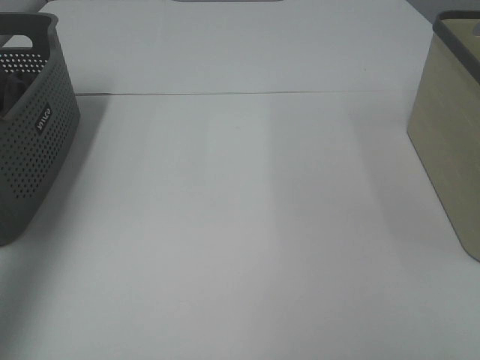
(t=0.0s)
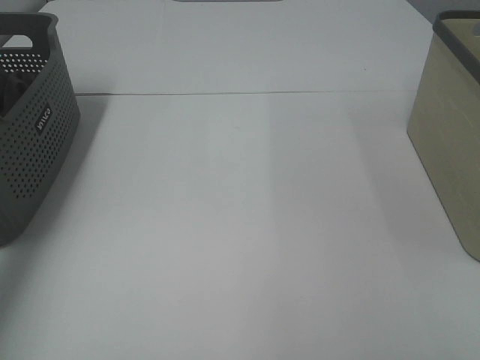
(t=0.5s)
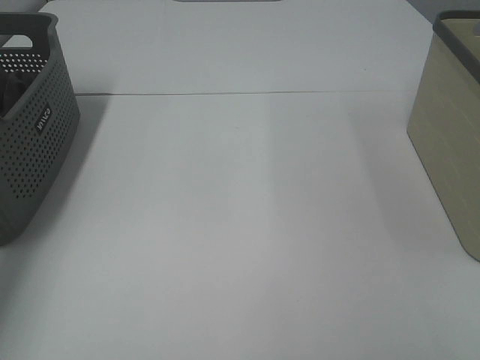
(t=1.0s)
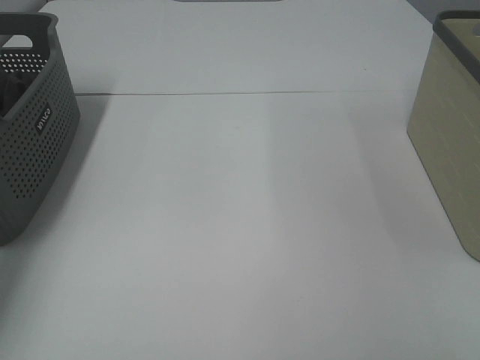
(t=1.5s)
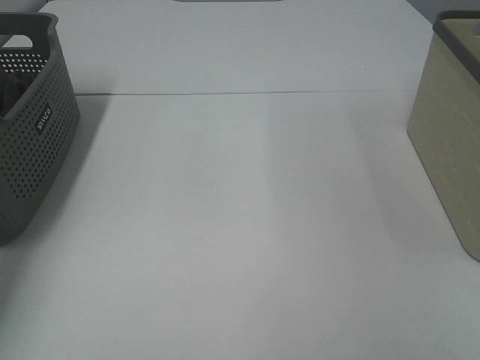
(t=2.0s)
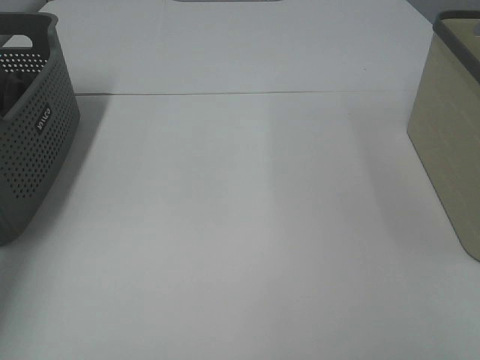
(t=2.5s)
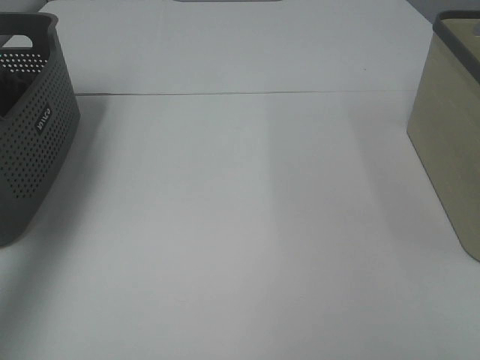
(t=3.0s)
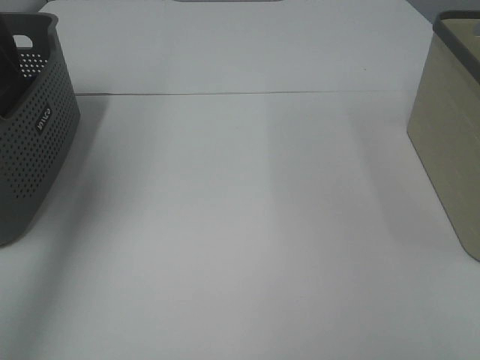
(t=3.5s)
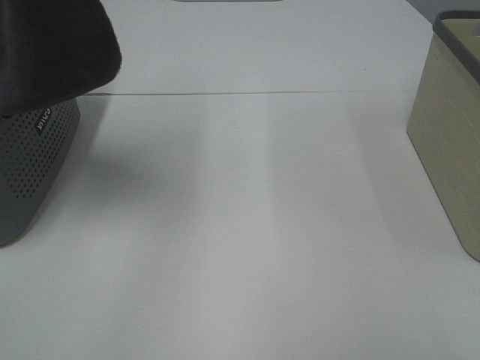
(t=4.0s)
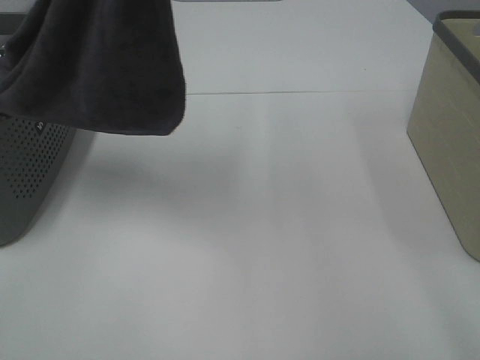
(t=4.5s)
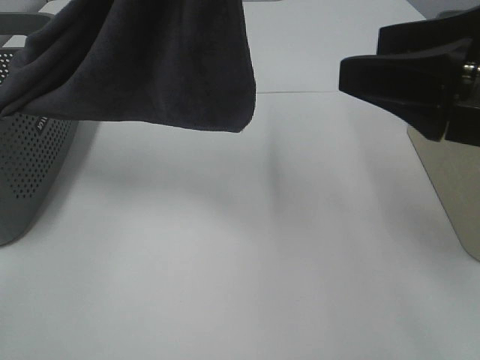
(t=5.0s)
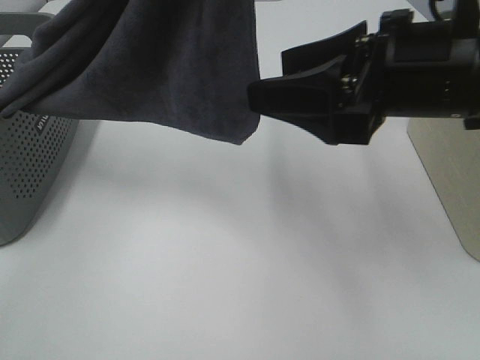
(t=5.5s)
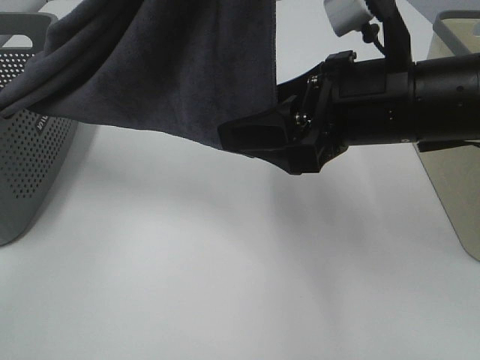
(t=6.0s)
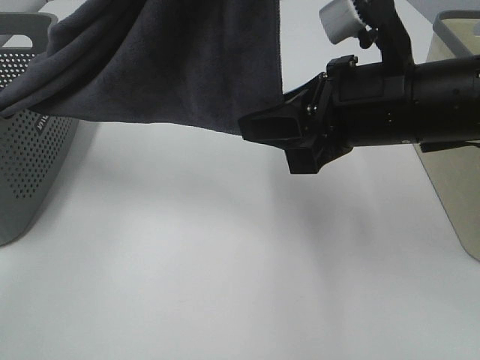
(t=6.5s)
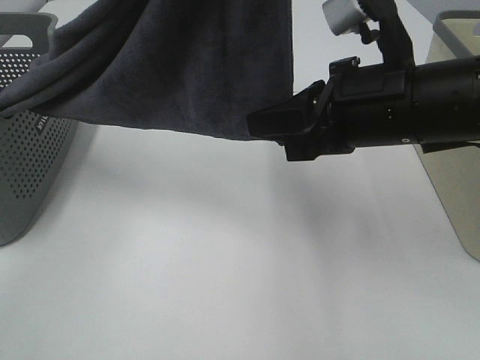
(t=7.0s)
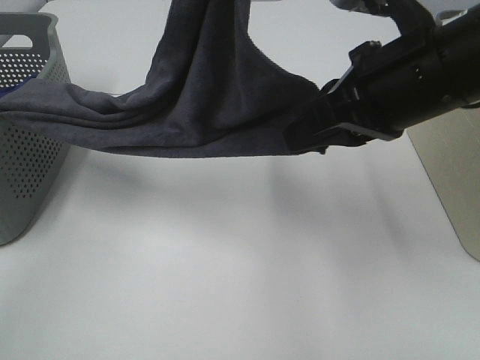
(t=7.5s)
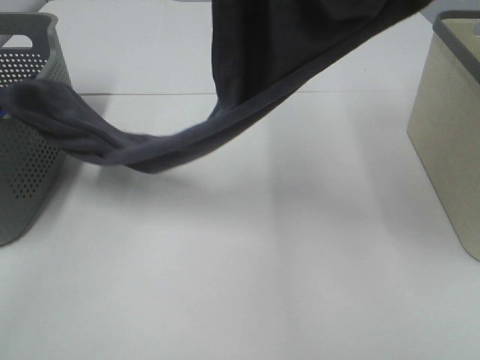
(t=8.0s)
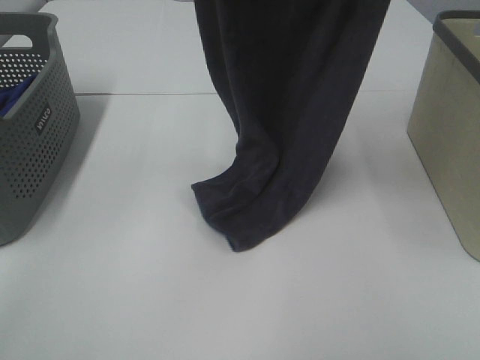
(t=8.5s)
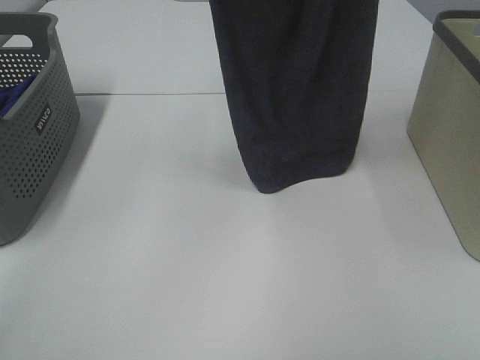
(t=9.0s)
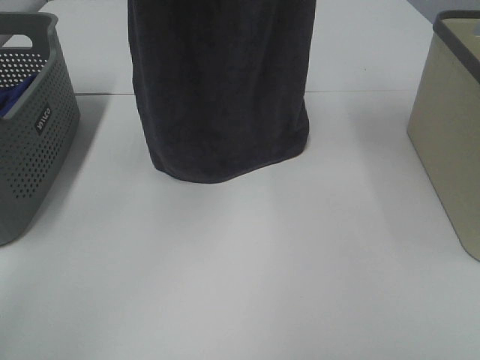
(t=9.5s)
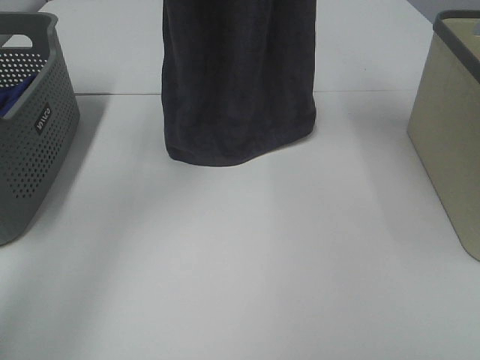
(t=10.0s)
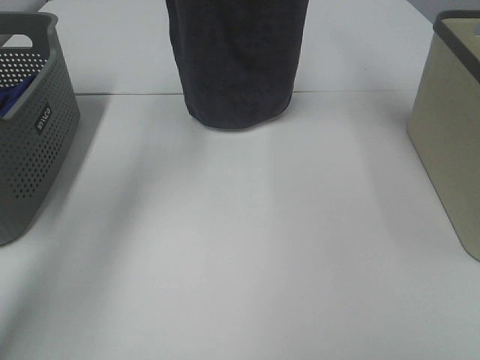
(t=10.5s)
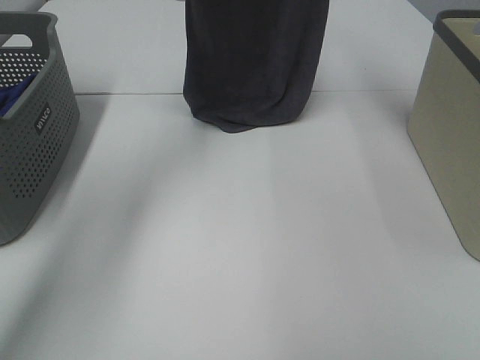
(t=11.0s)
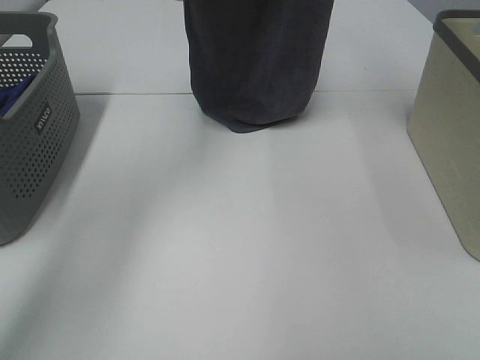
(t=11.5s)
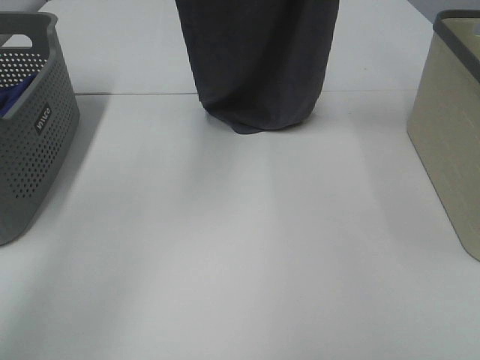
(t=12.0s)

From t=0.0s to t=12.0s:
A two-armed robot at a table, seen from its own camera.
Task of the whole recording: Remove the towel and place it.
Step, from t=3.5s to t=6.5s: Right hand: grab a corner of the grey towel and straighten it.
From t=0.0s to t=2.0s: The left gripper travels downward and forward by approximately 30 cm, and closes up.
From t=2.0s to t=4.0s: The left gripper is displaced upward, to the right and backward by roughly 40 cm.
From t=4.0s to t=6.0s: The left gripper goes about 15 cm to the right. The right gripper is displaced forward and to the left by approximately 30 cm.
From t=6.0s to t=8.0s: The right gripper goes some 20 cm upward, and closes up, while the left gripper ends up approximately 5 cm from where it was.
From t=8.0s to t=10.0s: The left gripper goes approximately 20 cm forward and to the left, while the right gripper shifts roughly 15 cm forward and upward.
From t=10.0s to t=12.0s: The right gripper goes roughly 5 cm to the right, and goes forward and returns, some 5 cm each way. Meanwhile the left gripper travels forward and back again, roughly 10 cm each way.

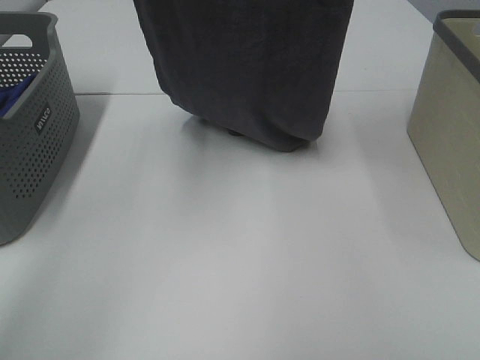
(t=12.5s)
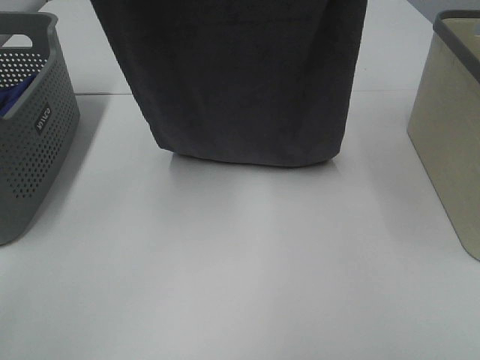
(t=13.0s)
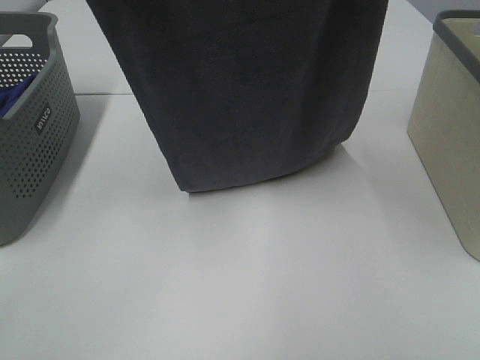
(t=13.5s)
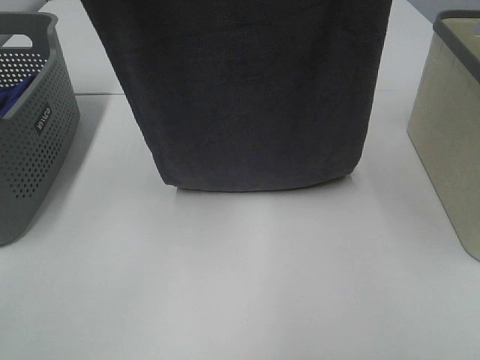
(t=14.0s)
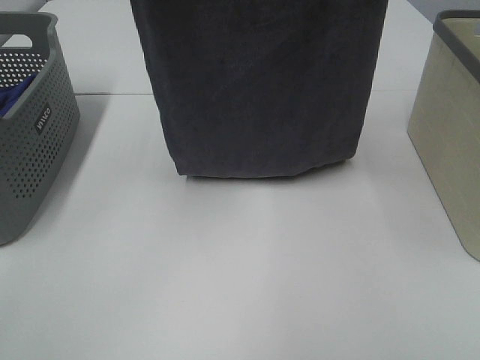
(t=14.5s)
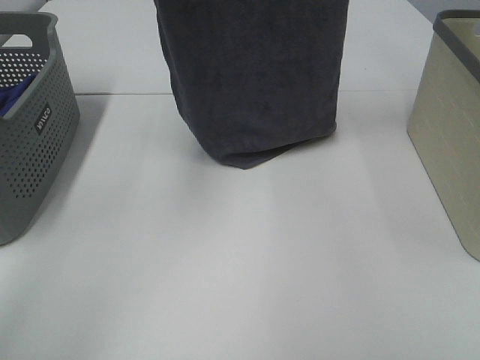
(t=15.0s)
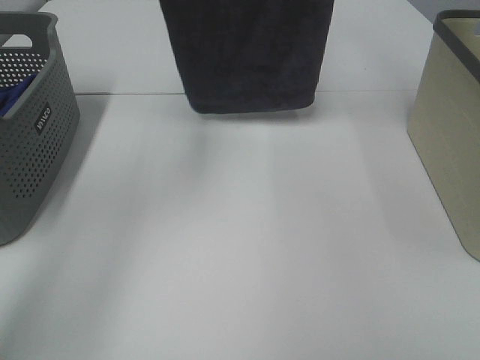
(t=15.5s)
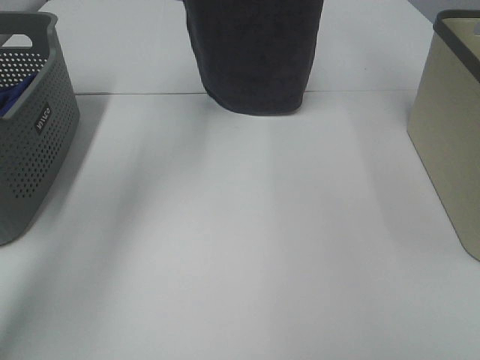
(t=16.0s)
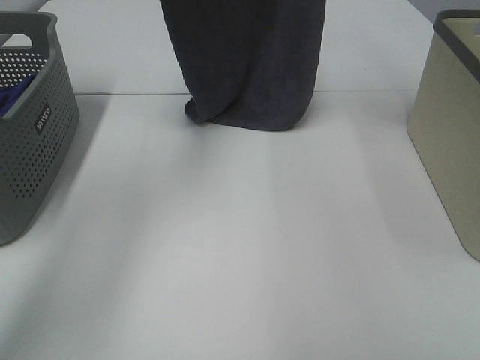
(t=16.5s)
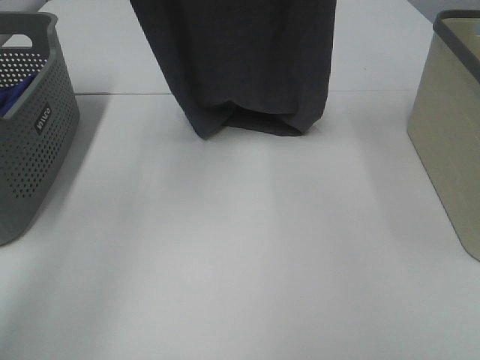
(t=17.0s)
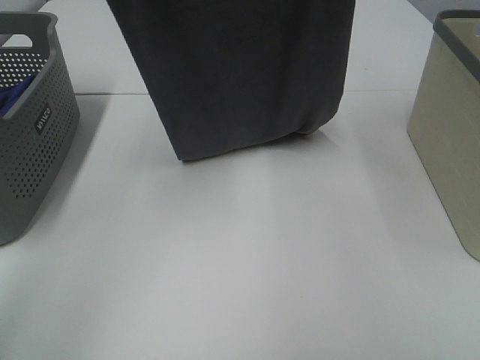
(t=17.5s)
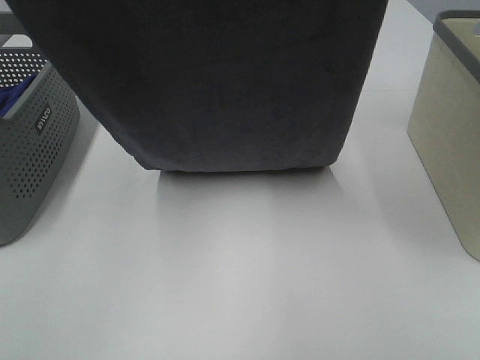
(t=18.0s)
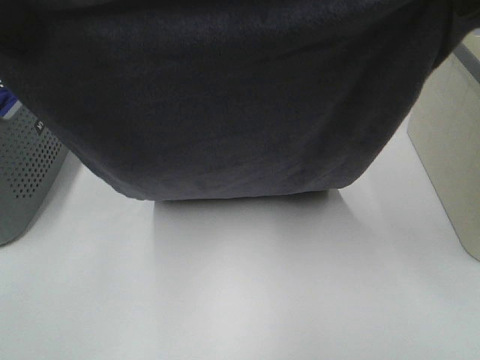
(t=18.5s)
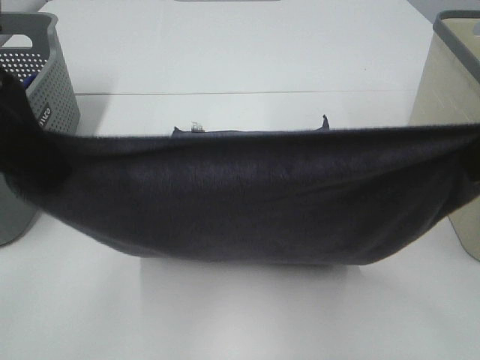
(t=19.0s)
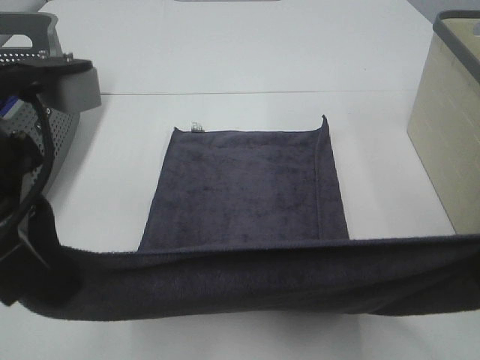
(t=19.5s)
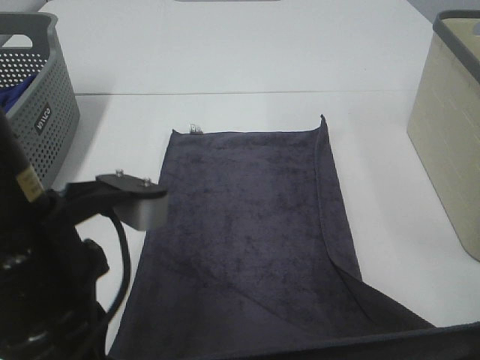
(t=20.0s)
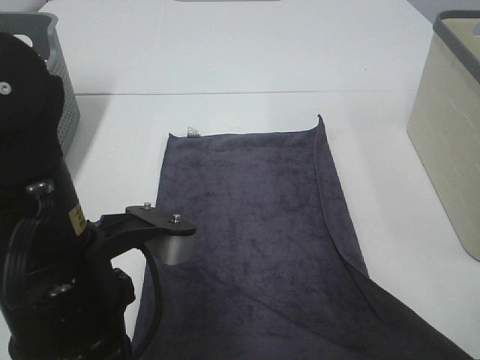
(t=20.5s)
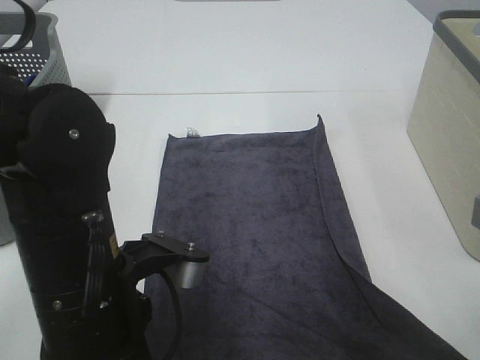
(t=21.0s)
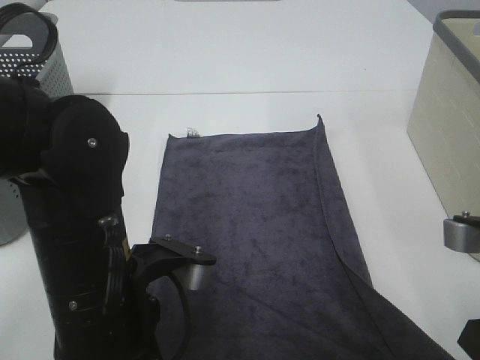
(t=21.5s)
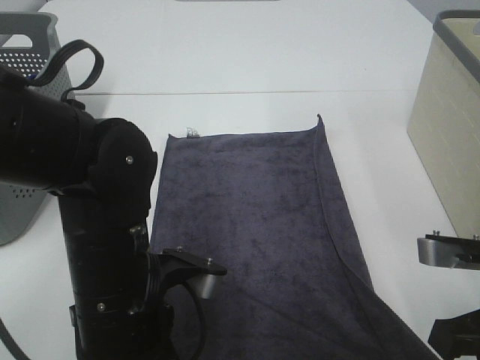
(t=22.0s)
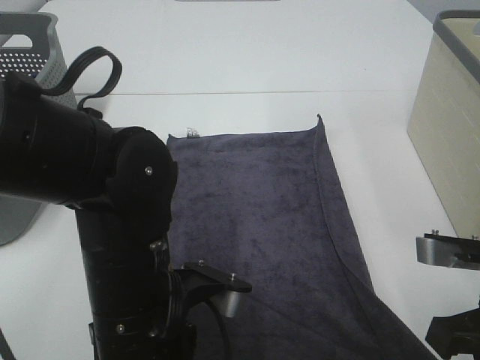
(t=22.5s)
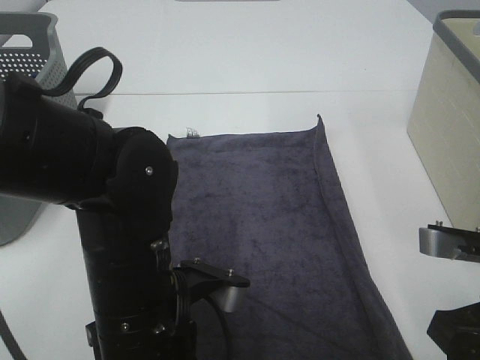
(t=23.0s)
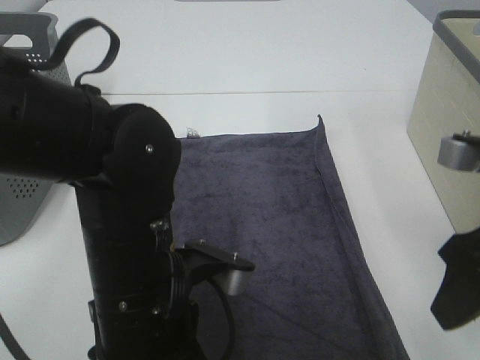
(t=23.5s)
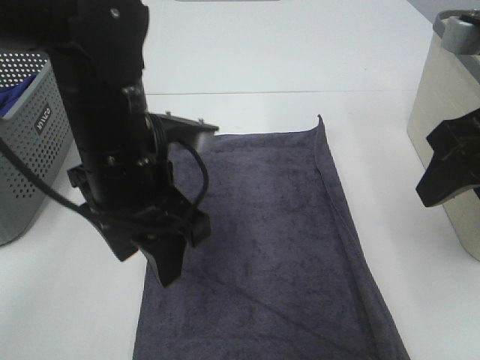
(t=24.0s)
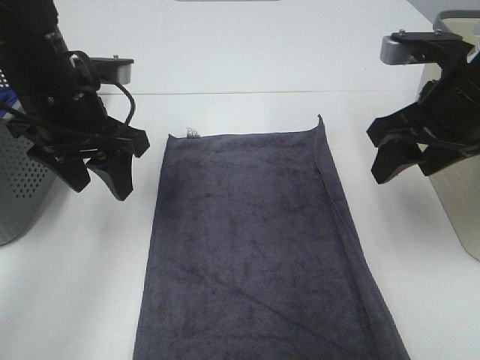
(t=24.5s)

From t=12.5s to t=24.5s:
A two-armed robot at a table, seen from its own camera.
Task of the whole recording: Remove the towel and place it.
Step, from t=12.5s to t=17.5s: Left hand: spread the grey towel flat on the table.
Step, from t=12.5s to t=17.5s: Right hand: spread the grey towel flat on the table.
From t=12.5s to t=14.5s: The right gripper moves backward, roughly 5 cm.
From t=14.5s to t=16.5s: Both grippers travel together forward, some 15 cm.
From t=16.5s to t=18.5s: The two grippers go roughly 25 cm backward.
From t=18.5s to t=20.5s: The left gripper goes roughly 20 cm downward and to the right, while the right gripper is displaced downward by about 20 cm.
From t=20.5s to t=22.5s: Both grippers travel together downward, approximately 5 cm.
From t=22.5s to t=24.5s: The left gripper travels forward, to the left and upward by some 20 cm, and opens its fingers. Meanwhile the right gripper heads forward and upward, covering some 15 cm, and opens up.

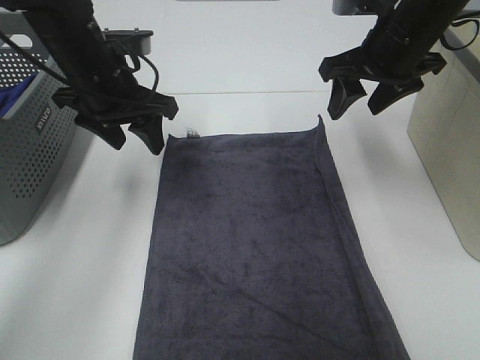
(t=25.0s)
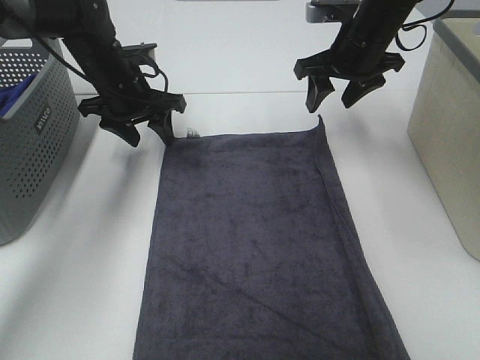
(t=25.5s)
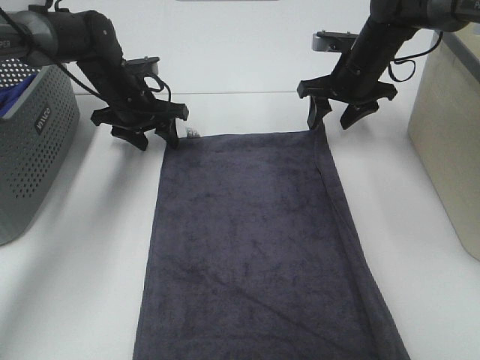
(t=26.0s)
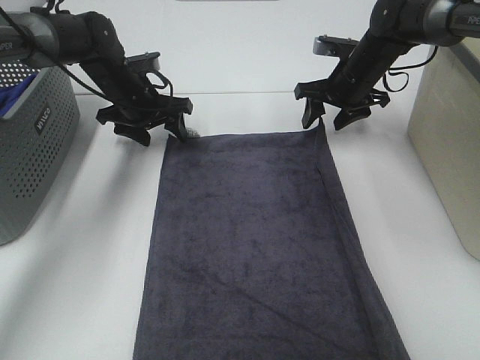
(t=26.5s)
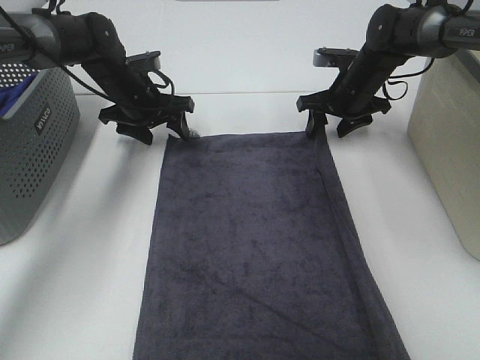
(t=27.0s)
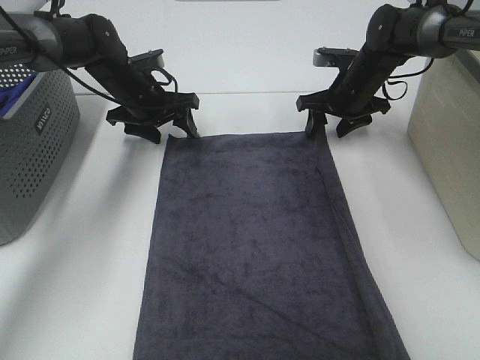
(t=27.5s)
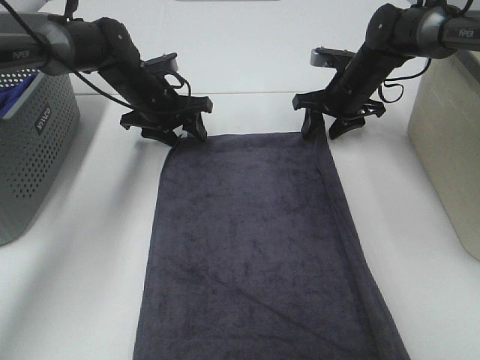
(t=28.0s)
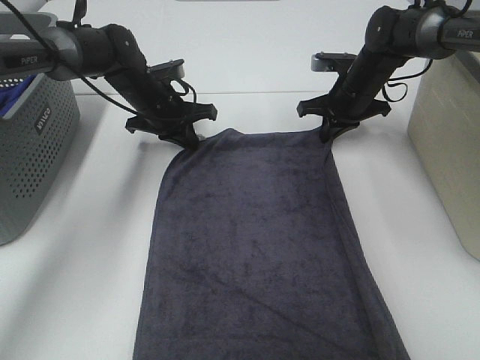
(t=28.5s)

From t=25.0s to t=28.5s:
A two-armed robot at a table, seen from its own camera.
Task of the whole recording: Remove the towel and place it.
From t=25.0s to t=27.0s: The right gripper moves downward and forward, approximately 20 cm. The left gripper travels forward and downward by roughly 15 cm.
From t=27.0s to t=28.5s: The left gripper closes. The right gripper closes its fingers.
